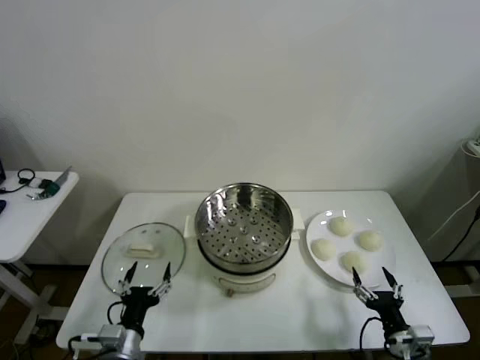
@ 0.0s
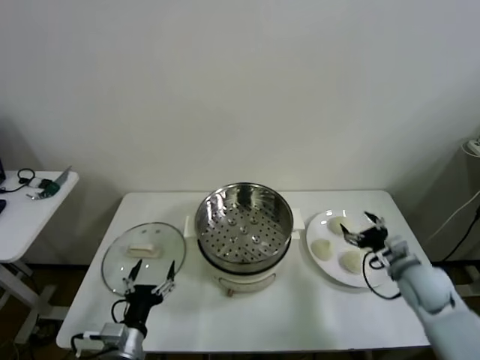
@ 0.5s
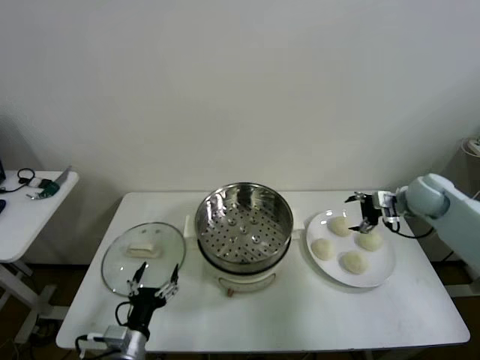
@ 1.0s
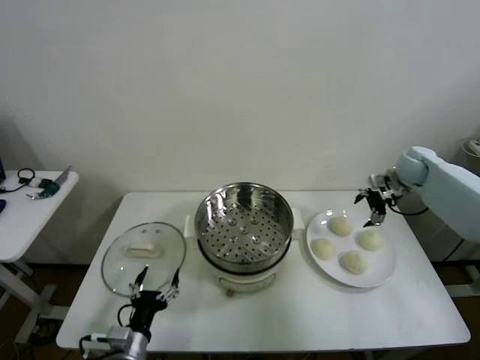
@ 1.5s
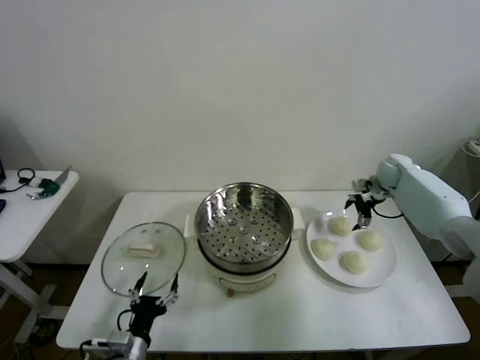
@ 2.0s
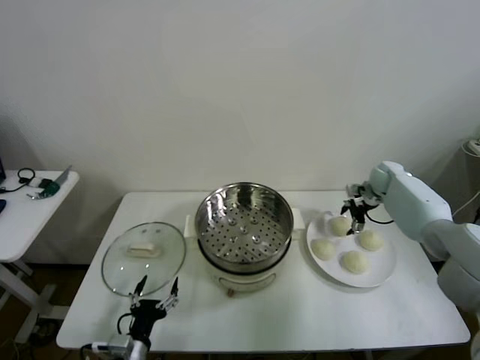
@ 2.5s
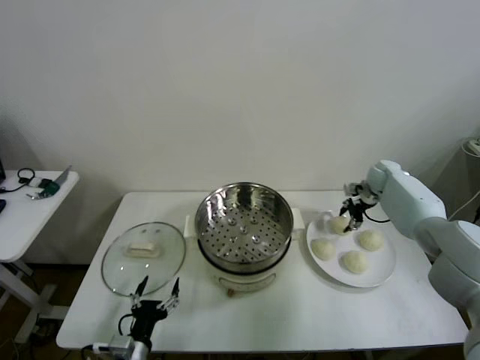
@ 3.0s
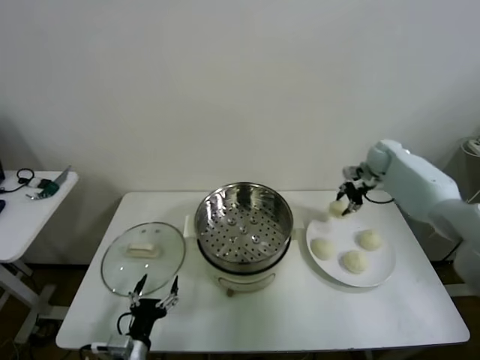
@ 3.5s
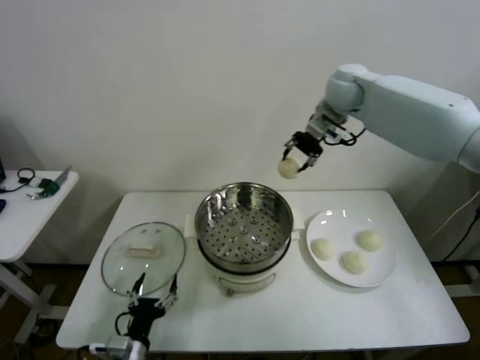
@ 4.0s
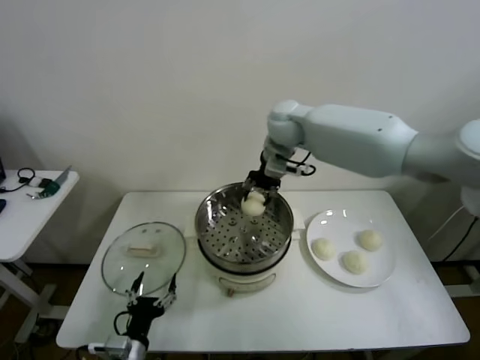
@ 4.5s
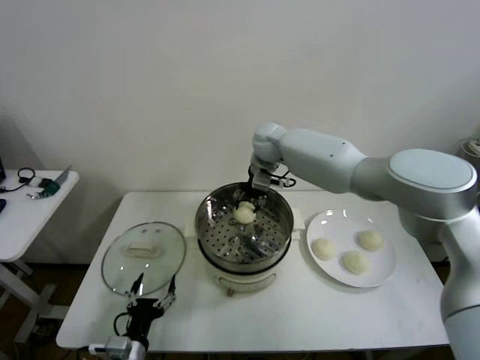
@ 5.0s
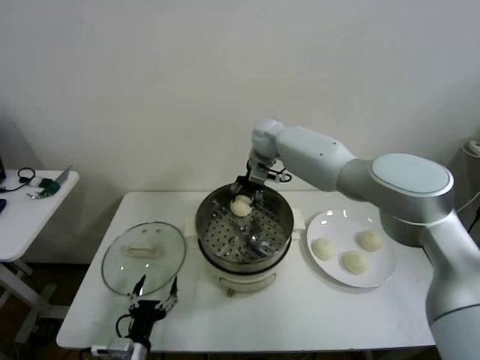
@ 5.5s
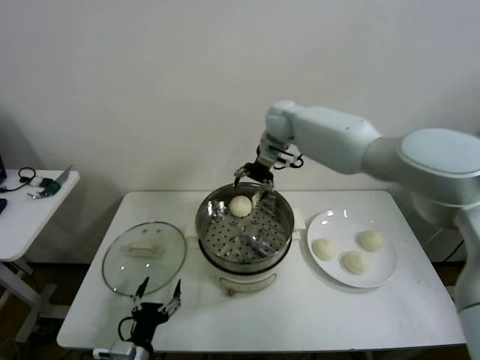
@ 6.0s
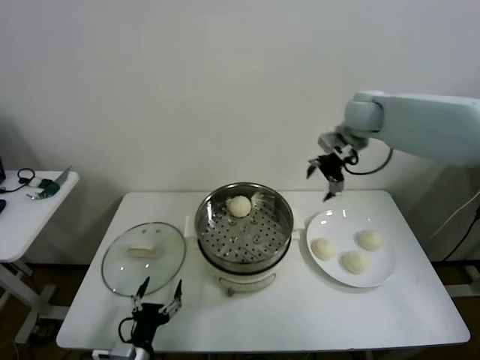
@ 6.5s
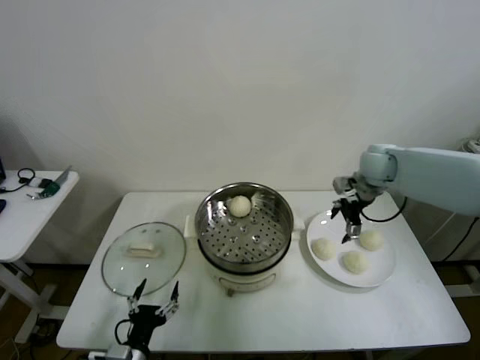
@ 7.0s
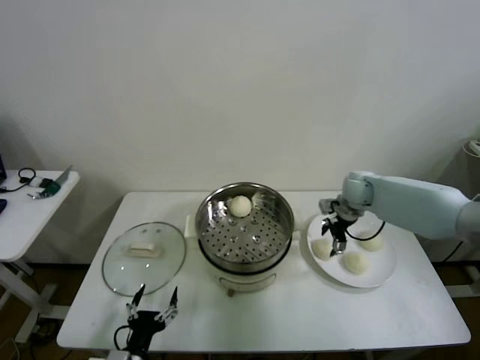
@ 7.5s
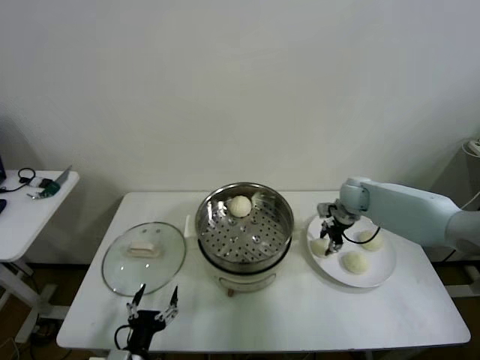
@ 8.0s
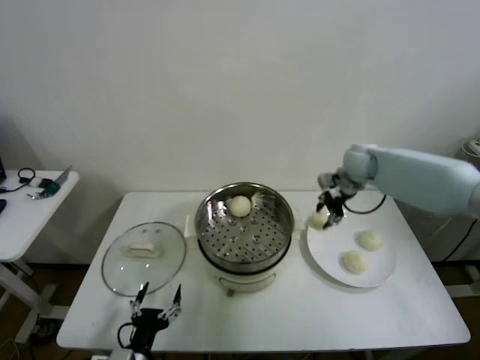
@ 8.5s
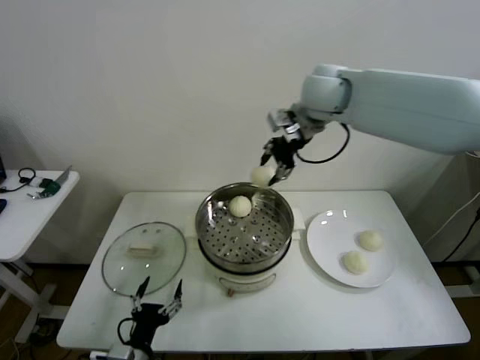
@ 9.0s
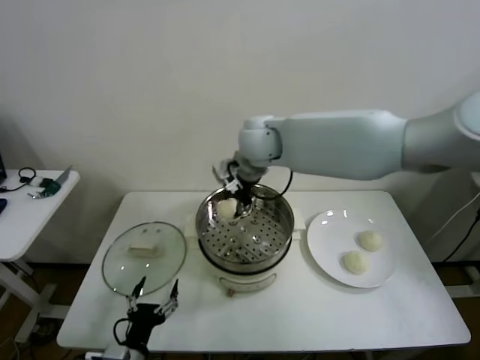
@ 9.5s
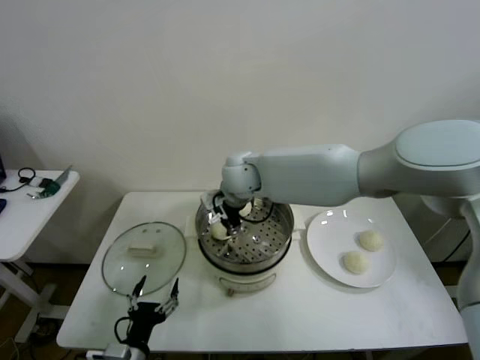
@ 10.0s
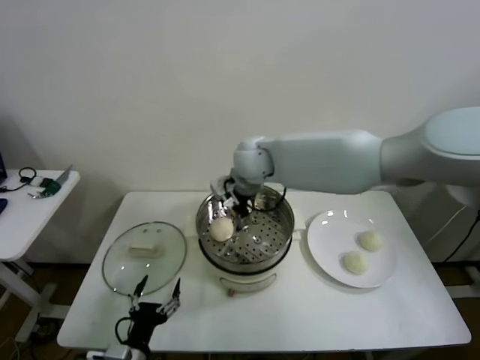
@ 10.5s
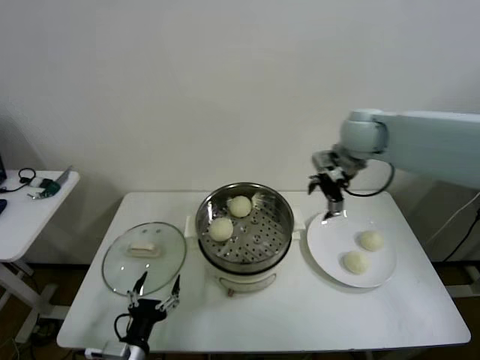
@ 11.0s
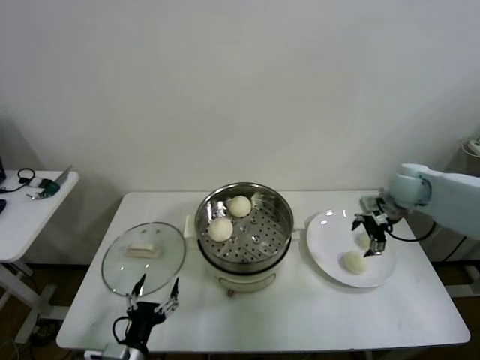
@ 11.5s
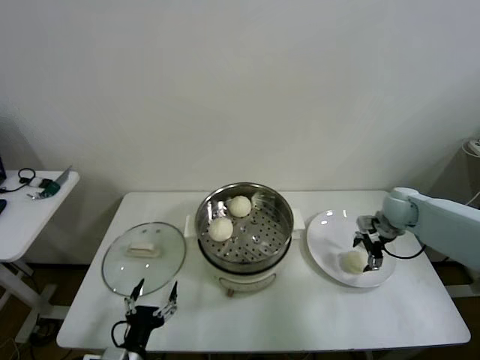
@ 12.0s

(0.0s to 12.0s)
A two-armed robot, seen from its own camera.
Task of the whole recording: take steamed baozi put them in steamer then cover it.
Step, 0.0s - 3.0s: Grasp the baozi in the plate with right gripper.
Step, 3.5s - 5.5s: Place the baozi on the steamer with right gripper.
Step, 6.0s - 7.5s: Grasp the baozi in the plate with right gripper.
Step, 8.0s - 10.0s: Place the baozi on the steamer with right gripper.
2.0s - 4.0s: The right gripper is displaced upward and to the left by some 35 cm, and closes.
4.0s - 6.0s: The right gripper goes about 5 cm downward, and opens up.
6.0s - 8.0s: The right gripper shifts some 30 cm downward and to the right, and closes its fingers.
8.0s - 10.0s: The right gripper travels to the left by roughly 30 cm.
10.0s - 12.0s: The right gripper shifts some 40 cm to the right, and opens up.

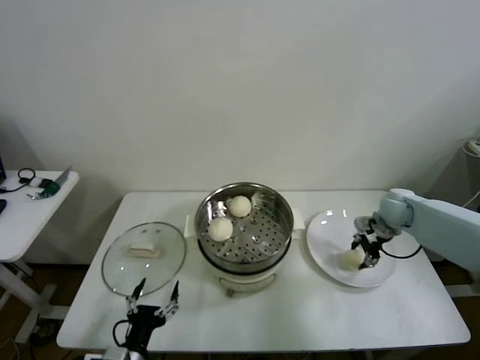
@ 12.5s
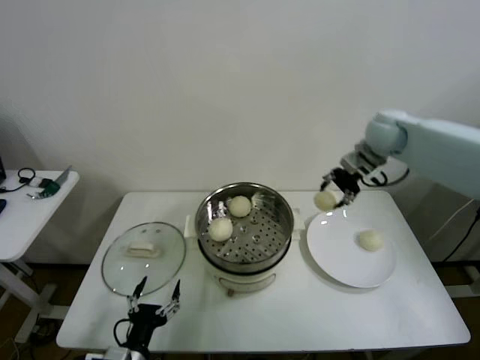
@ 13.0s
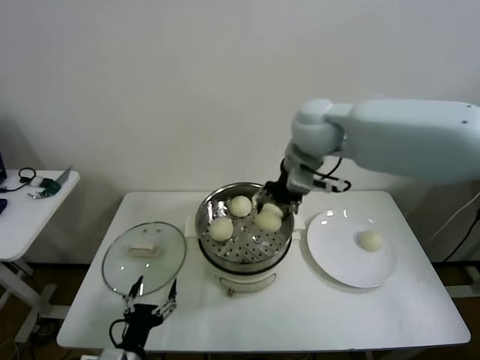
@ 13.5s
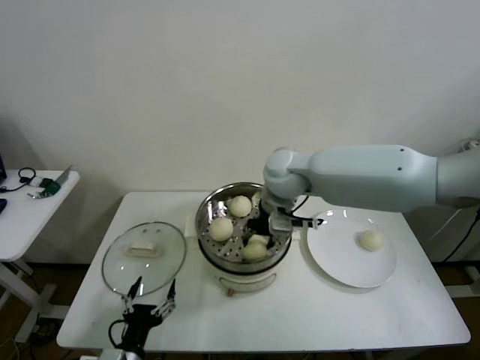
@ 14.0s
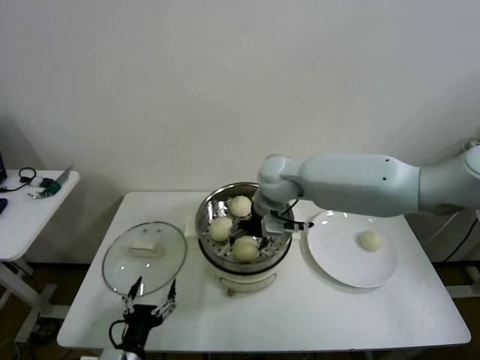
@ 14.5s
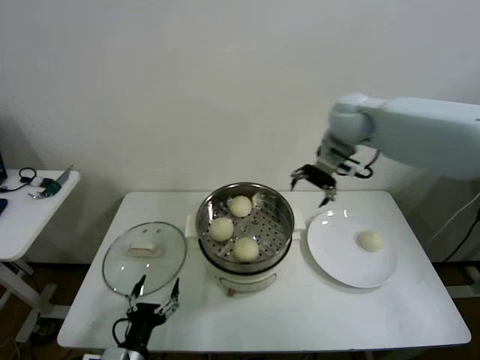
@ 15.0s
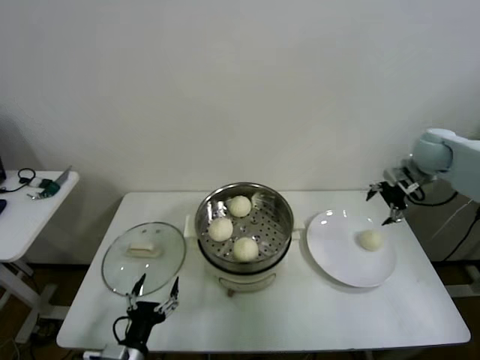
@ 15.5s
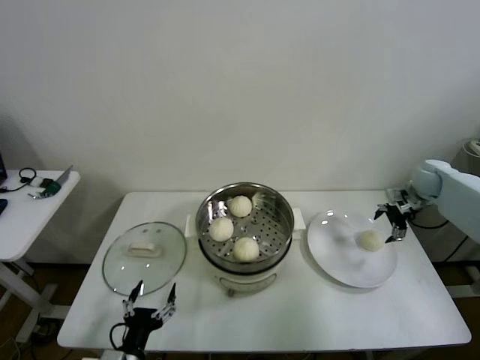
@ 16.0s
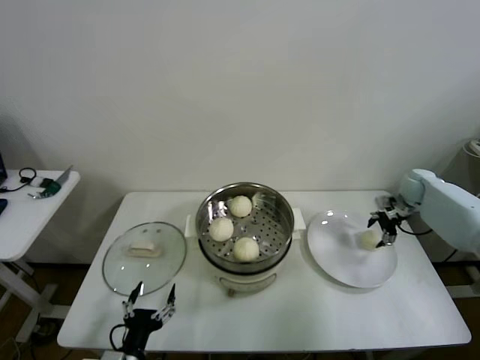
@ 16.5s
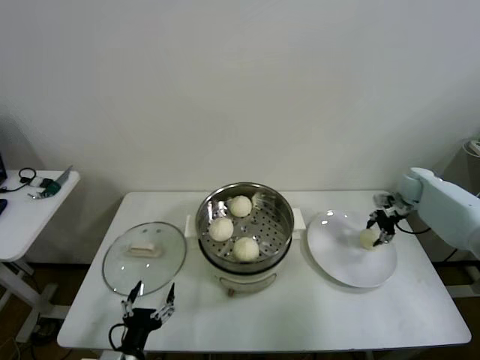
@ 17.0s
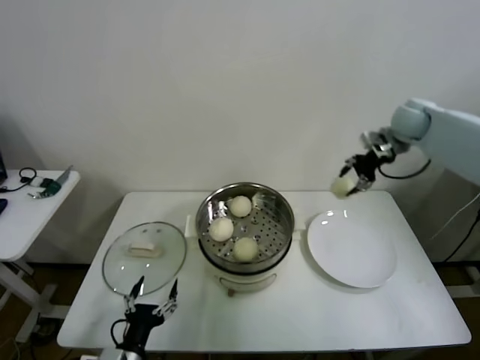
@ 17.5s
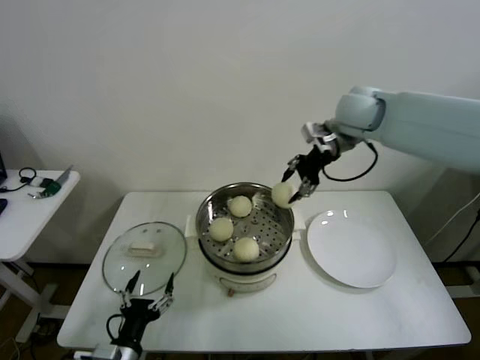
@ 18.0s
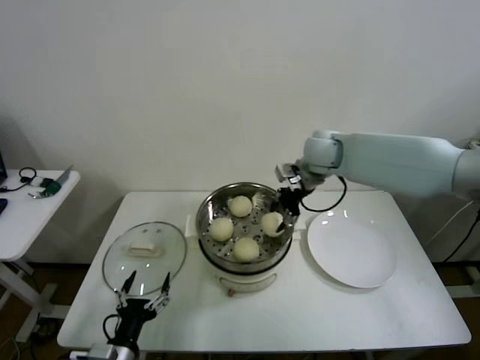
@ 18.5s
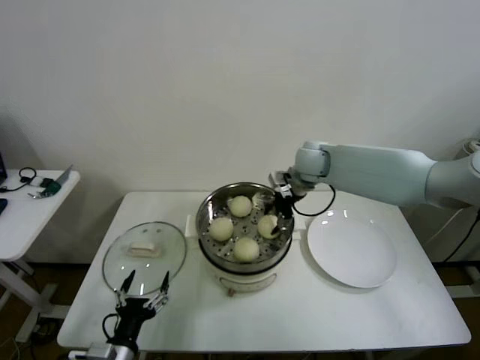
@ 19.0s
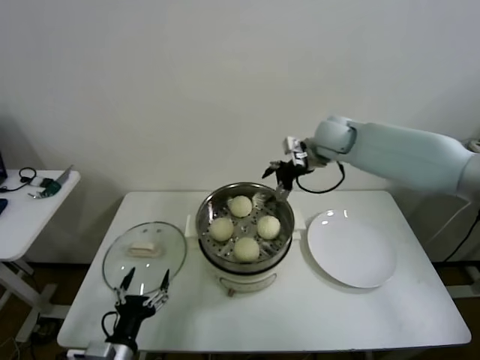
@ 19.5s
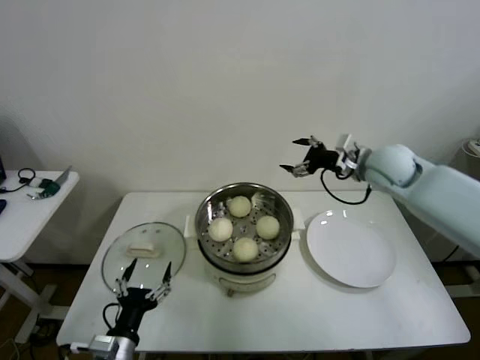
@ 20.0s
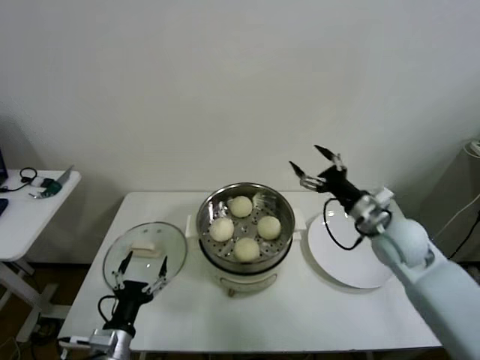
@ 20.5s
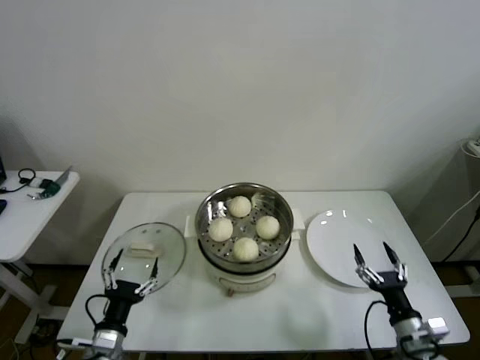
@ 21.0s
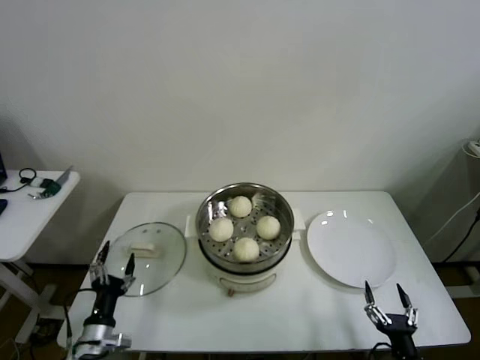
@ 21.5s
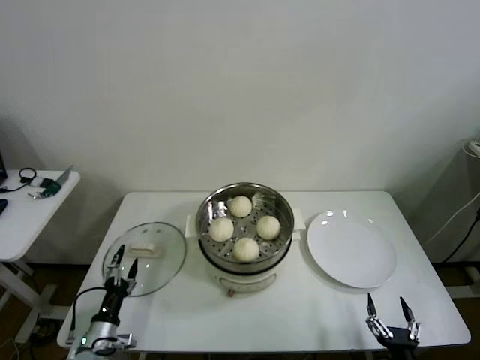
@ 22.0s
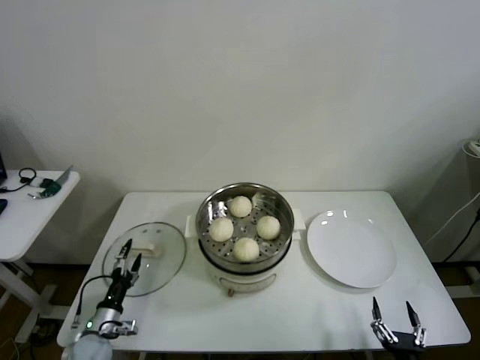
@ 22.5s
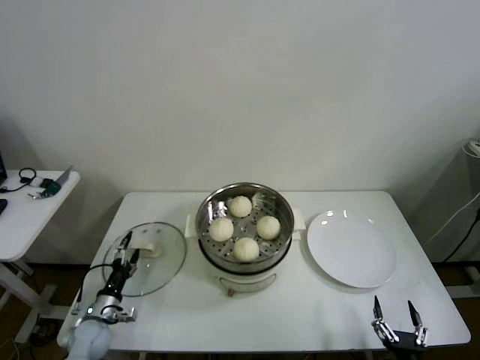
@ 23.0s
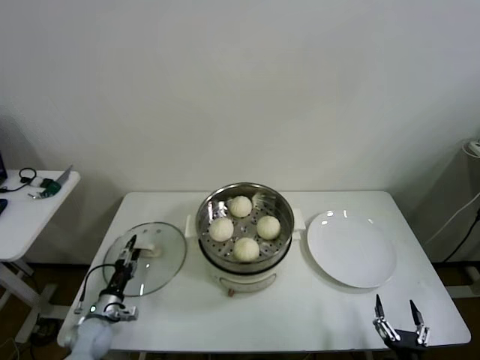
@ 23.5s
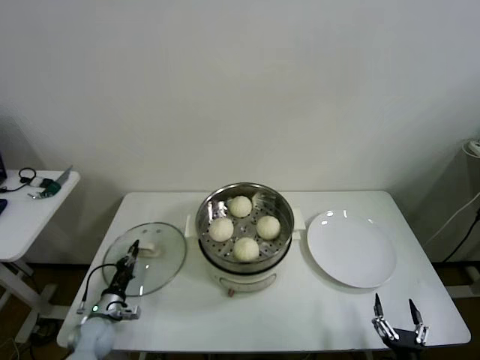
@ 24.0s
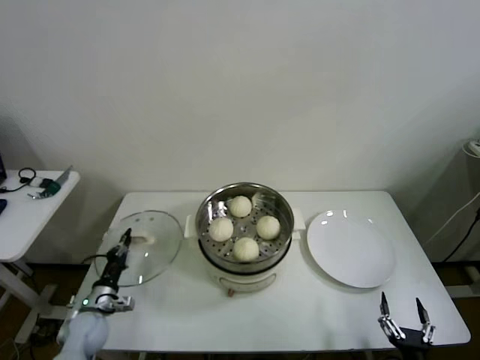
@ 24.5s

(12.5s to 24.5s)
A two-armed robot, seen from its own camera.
Task of the whole recording: take steamed baozi put them in steamer then cover it.
Step, 12.5s - 14.0s: Place the baozi on the steamer with right gripper.
Step, 15.0s - 16.5s: Grasp the baozi in the plate with right gripper.
Step, 17.0s - 19.0s: Place the baozi on the steamer with right gripper.
Step, 19.5s - 23.5s: Grasp the pot lid with left gripper.
12.5s - 14.5s: The right gripper heads to the left and upward, covering approximately 35 cm, and opens up.
14.5s - 16.5s: The right gripper shifts approximately 40 cm to the right.
16.5s - 18.5s: The right gripper heads to the left and upward, covering approximately 35 cm, and closes up.
18.5s - 20.5s: The right gripper moves backward, to the right and downward, approximately 25 cm, and opens up.
20.5s - 22.5s: The right gripper heads backward and downward, covering about 40 cm, while the left gripper heads downward, to the left and forward, covering approximately 20 cm.
22.5s - 24.5s: The left gripper moves about 5 cm, and closes up.

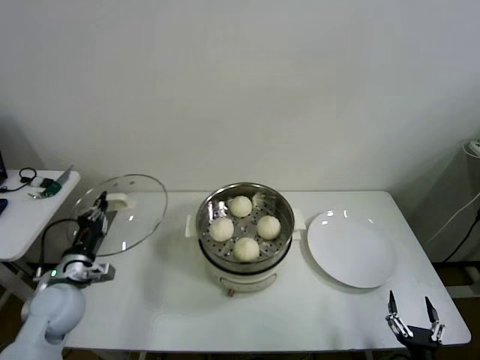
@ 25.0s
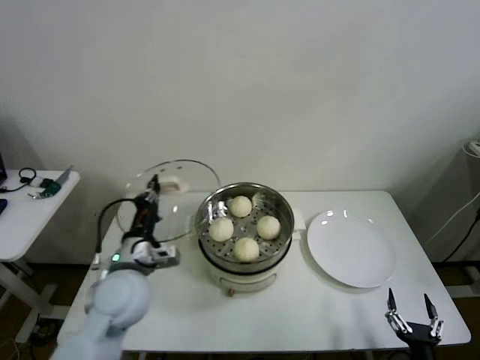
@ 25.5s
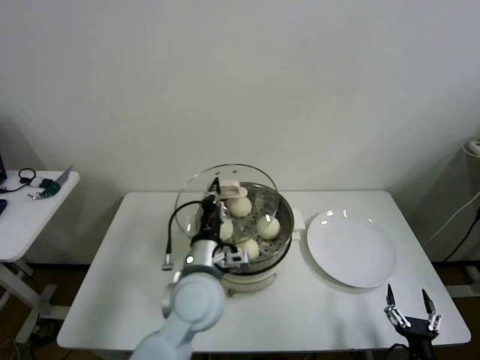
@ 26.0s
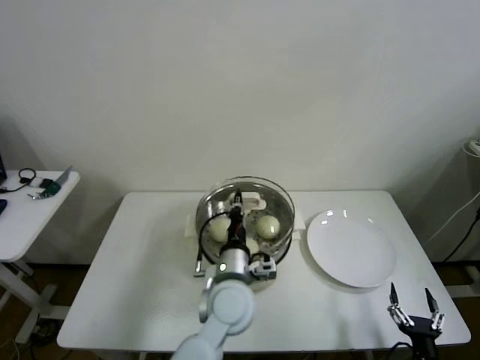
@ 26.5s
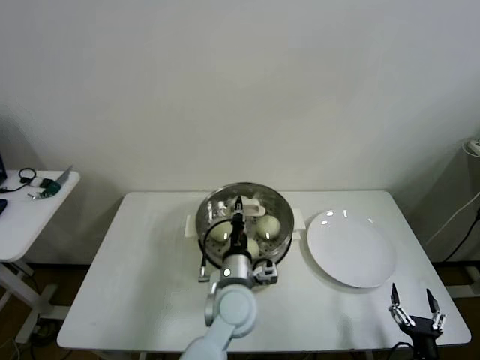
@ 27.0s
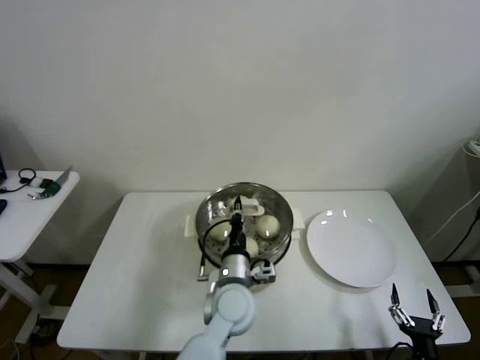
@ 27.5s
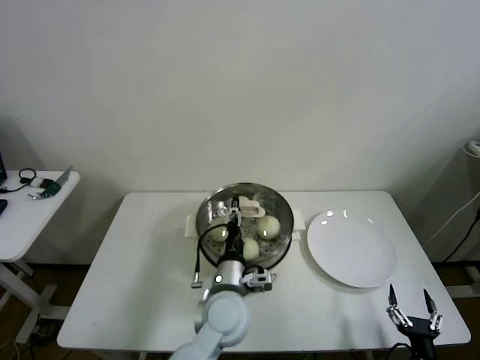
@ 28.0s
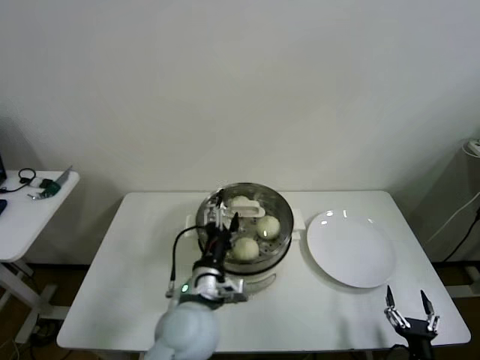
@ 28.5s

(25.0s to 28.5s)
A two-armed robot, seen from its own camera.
Task of the whole recording: take steamed baozi put them in steamer then cover it.
Step, 25.0s - 28.0s: Place the pot lid on the steamer with left gripper.
25.0s - 27.0s: The left gripper travels to the right by roughly 35 cm.
27.0s - 28.5s: The left gripper travels to the left and backward by approximately 10 cm, and opens its fingers.
